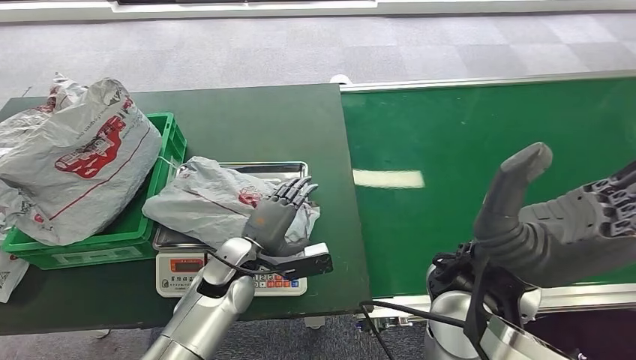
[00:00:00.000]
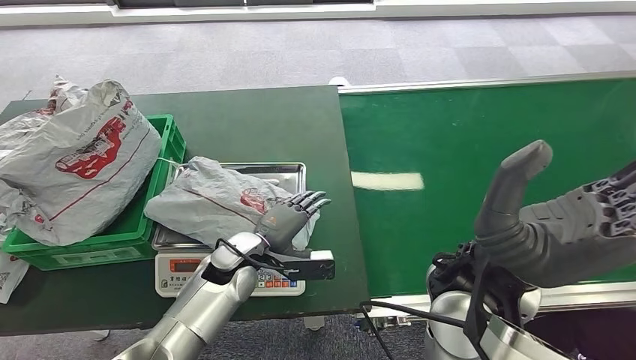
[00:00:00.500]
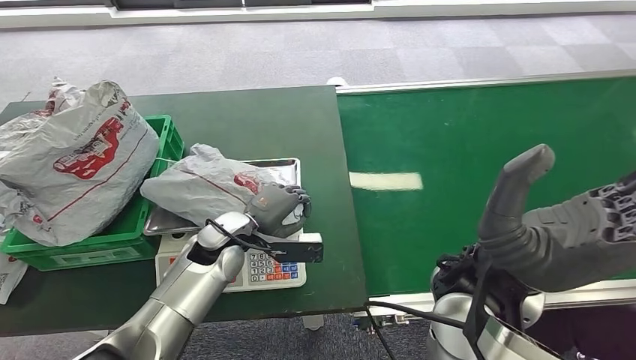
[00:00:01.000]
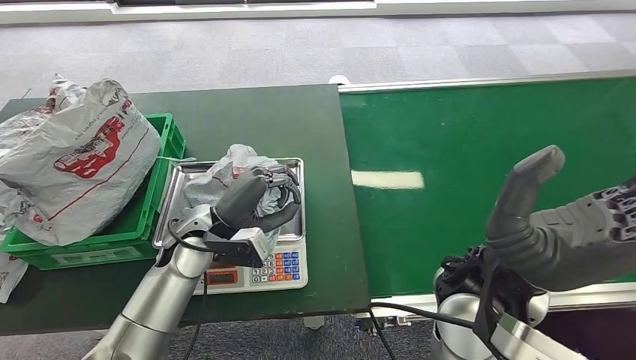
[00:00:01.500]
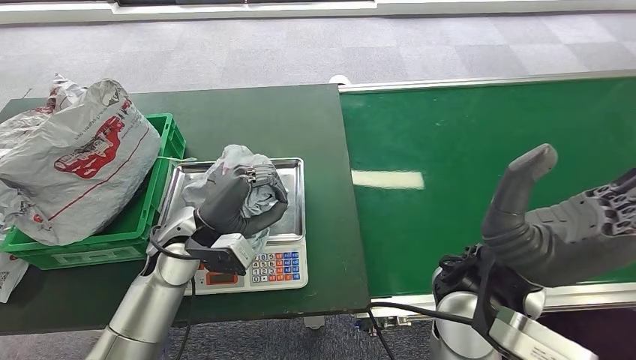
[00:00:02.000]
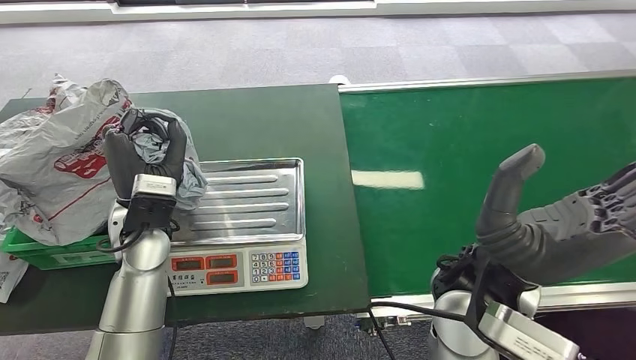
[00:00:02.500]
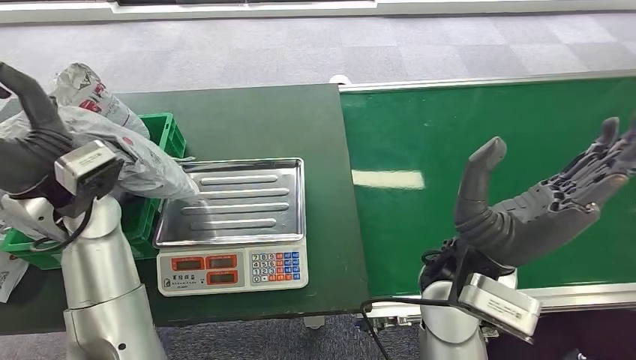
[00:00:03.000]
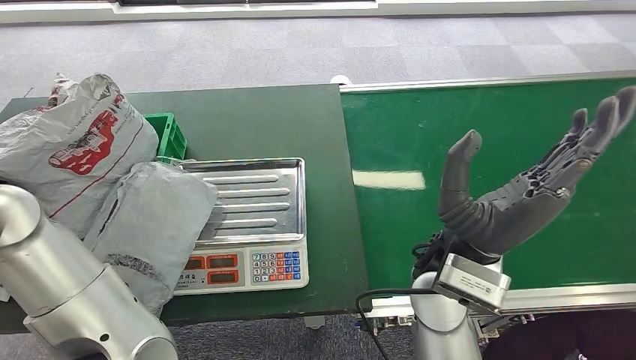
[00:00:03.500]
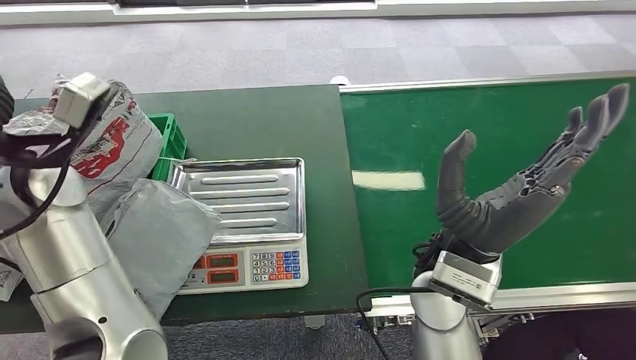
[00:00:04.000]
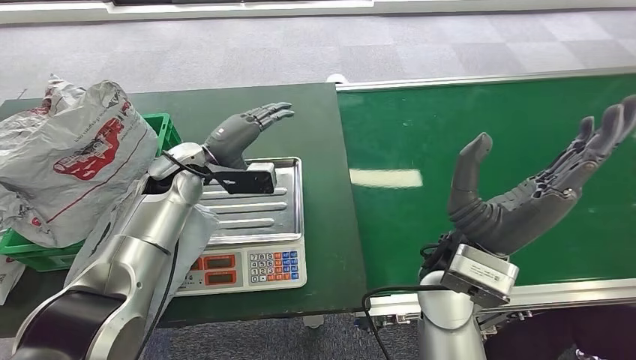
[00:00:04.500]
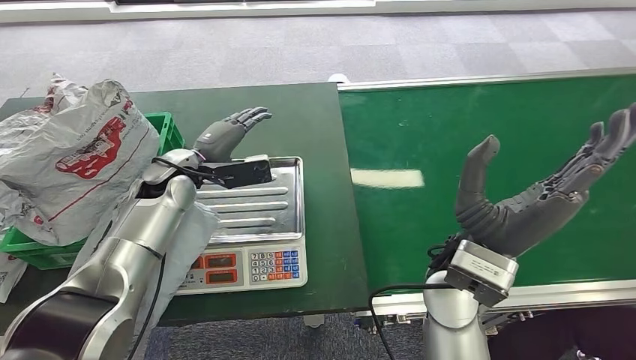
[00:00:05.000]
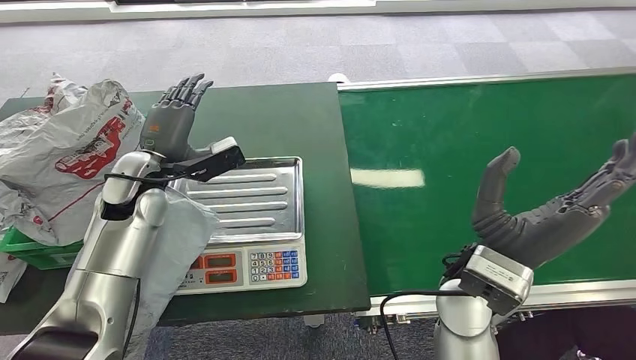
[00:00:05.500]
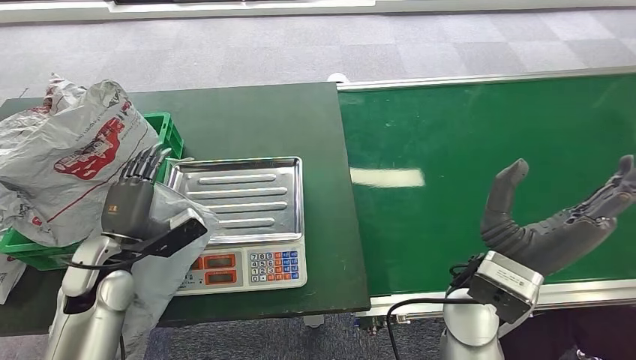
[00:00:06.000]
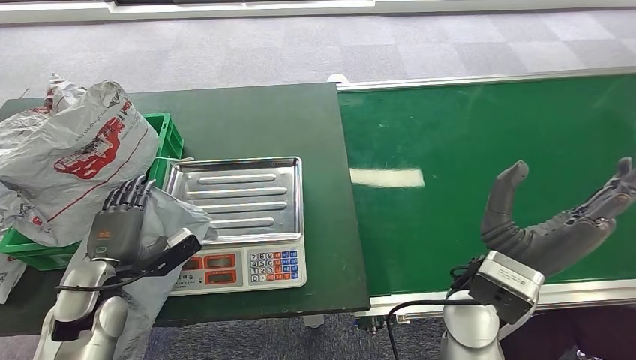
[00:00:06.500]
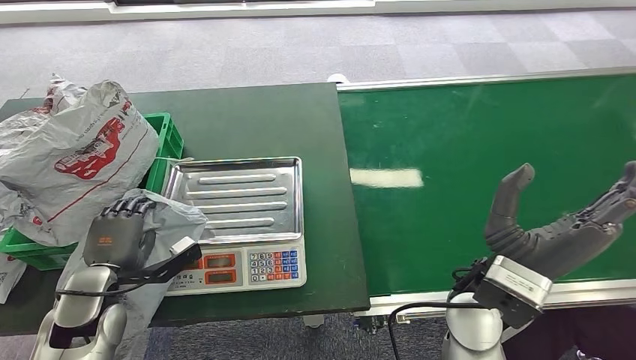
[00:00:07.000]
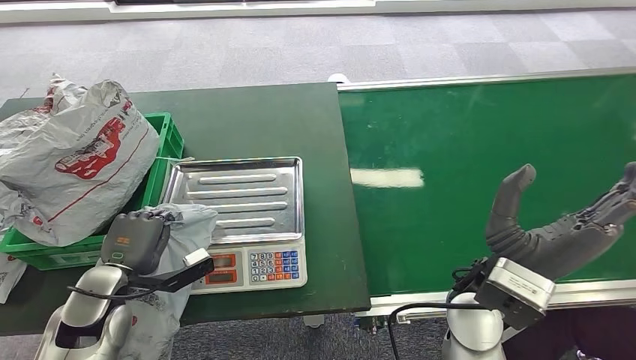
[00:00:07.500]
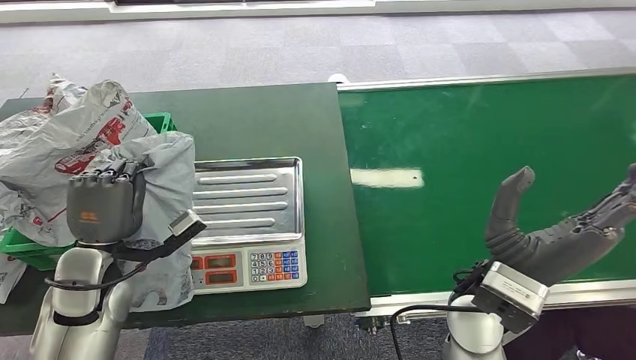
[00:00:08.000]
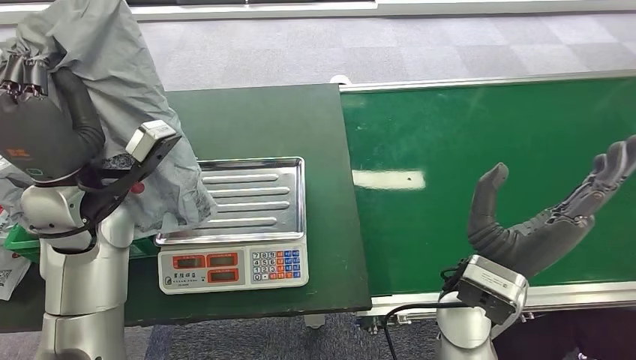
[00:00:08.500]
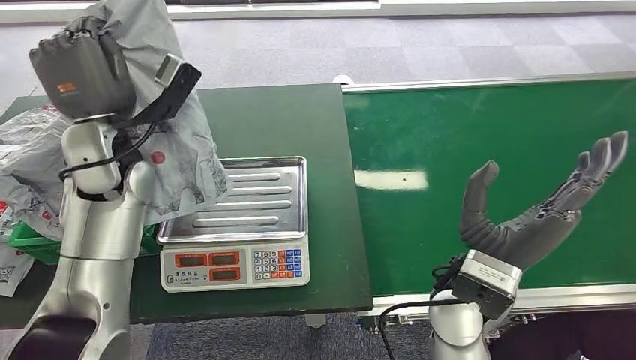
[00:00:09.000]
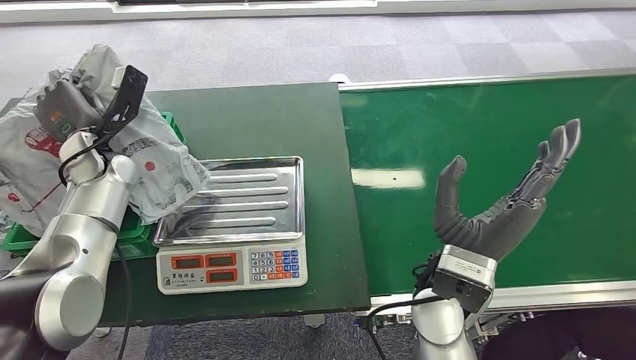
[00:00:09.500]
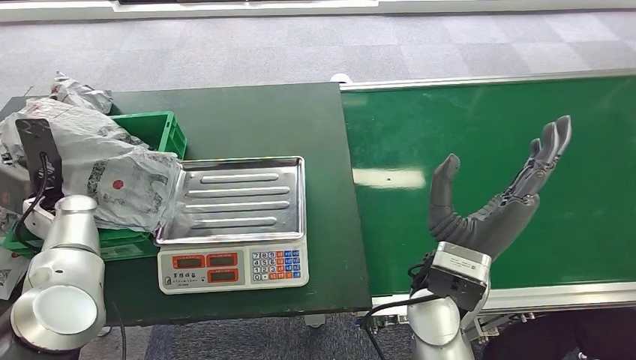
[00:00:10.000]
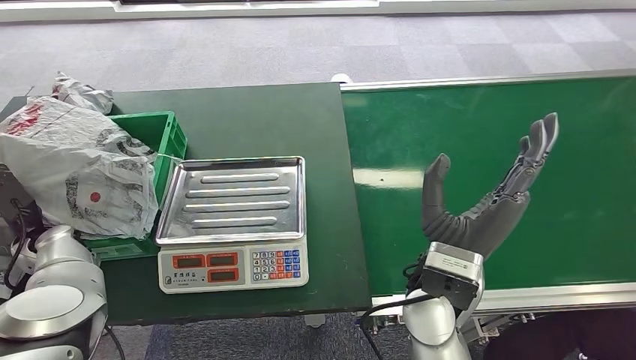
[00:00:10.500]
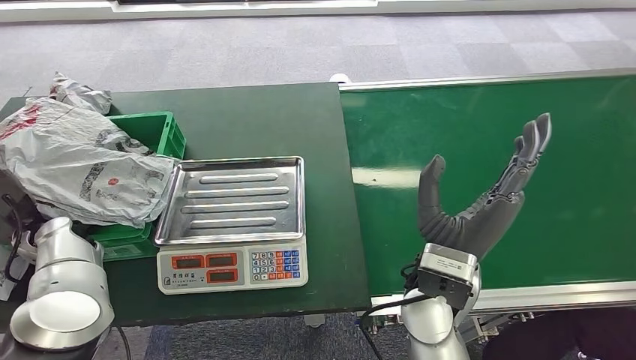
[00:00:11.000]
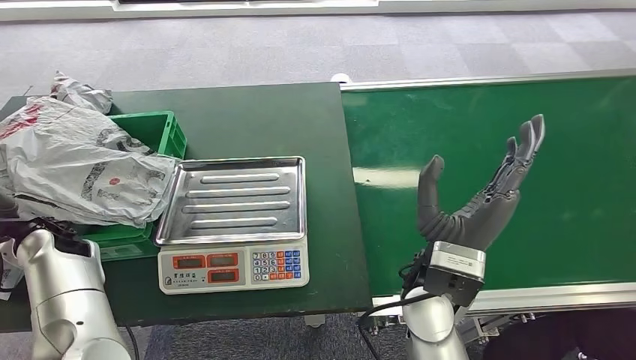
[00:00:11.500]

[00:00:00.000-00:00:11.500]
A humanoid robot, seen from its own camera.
Step, 00:00:00.000 to 00:00:02.500: Pick up the package from the inbound machine.
Step, 00:00:03.500 to 00:00:11.500: Place the package into the parcel locker.
00:00:00.000 to 00:00:02.000: The left hand shifts approximately 10 cm upward and to the left.
00:00:06.000 to 00:00:07.500: The left hand shifts by roughly 5 cm.
